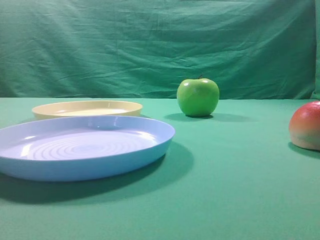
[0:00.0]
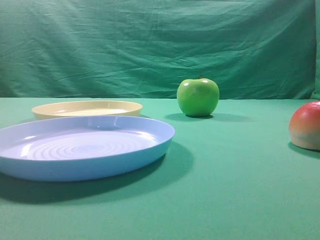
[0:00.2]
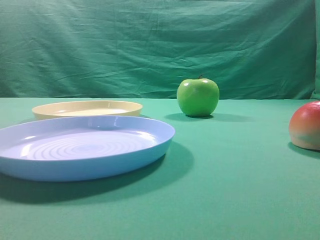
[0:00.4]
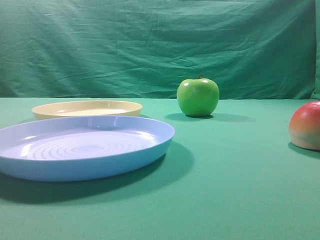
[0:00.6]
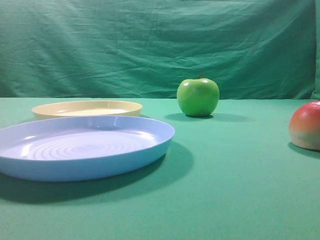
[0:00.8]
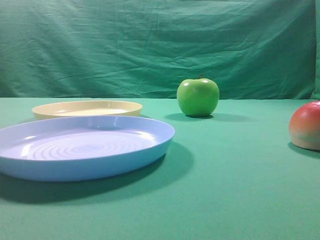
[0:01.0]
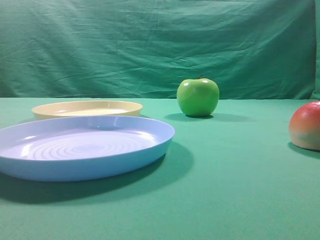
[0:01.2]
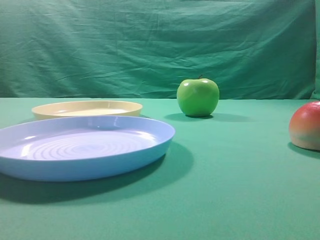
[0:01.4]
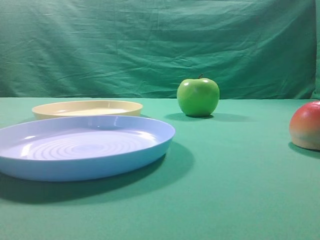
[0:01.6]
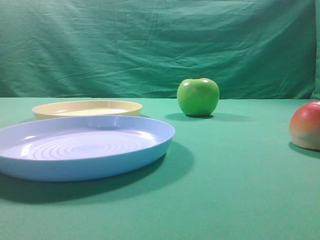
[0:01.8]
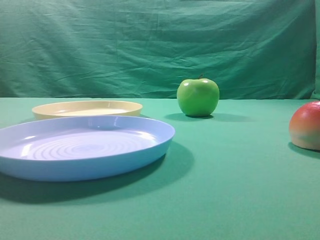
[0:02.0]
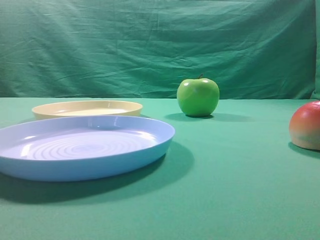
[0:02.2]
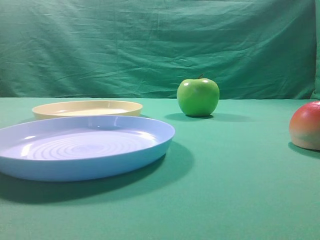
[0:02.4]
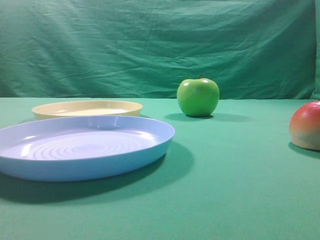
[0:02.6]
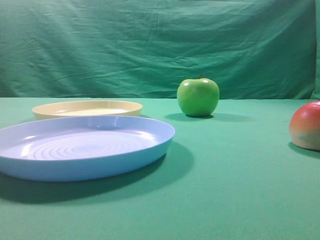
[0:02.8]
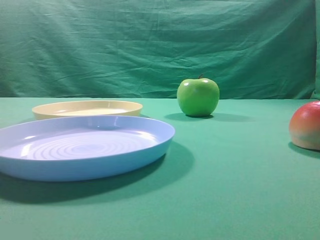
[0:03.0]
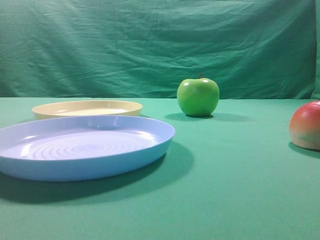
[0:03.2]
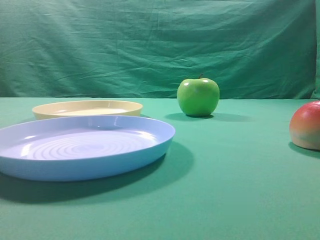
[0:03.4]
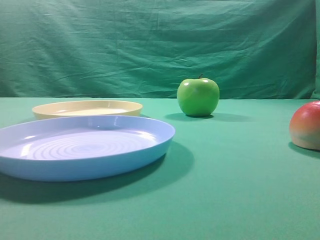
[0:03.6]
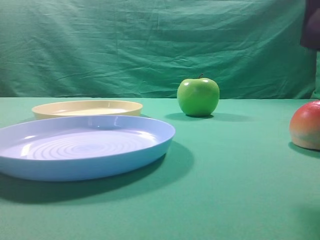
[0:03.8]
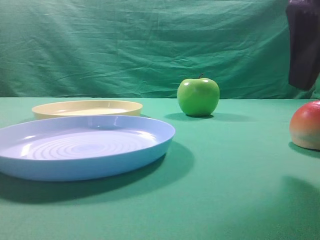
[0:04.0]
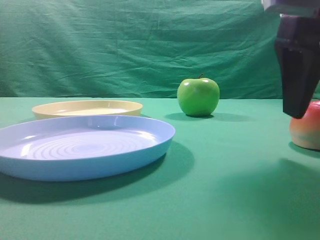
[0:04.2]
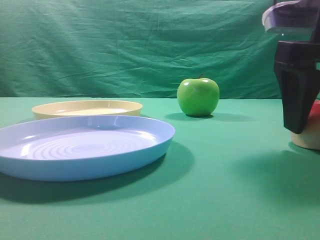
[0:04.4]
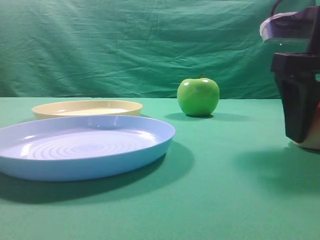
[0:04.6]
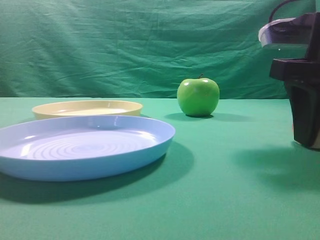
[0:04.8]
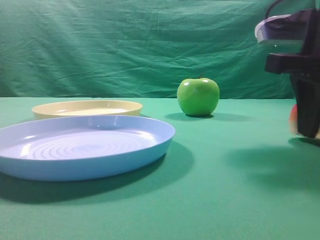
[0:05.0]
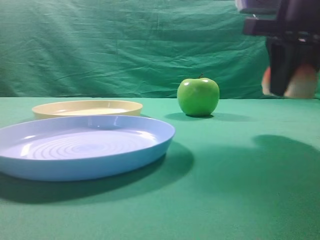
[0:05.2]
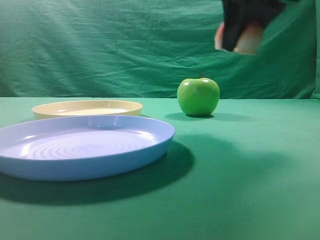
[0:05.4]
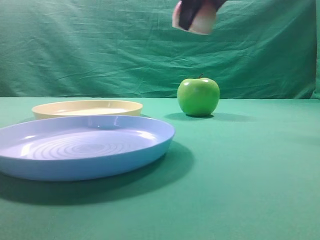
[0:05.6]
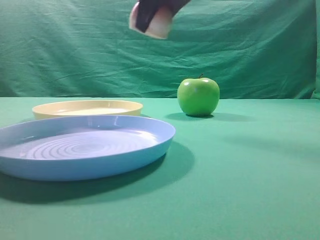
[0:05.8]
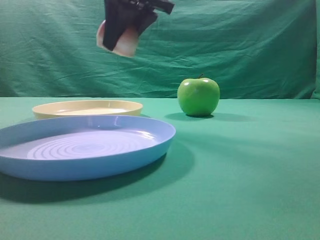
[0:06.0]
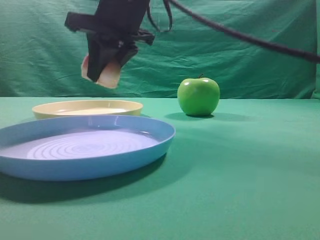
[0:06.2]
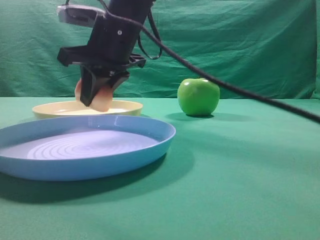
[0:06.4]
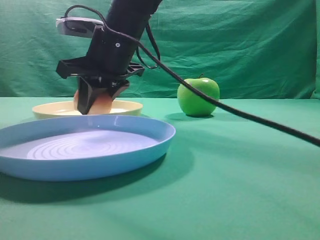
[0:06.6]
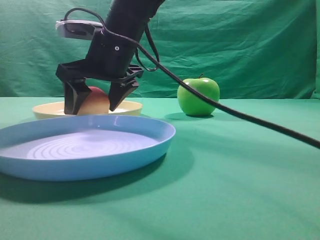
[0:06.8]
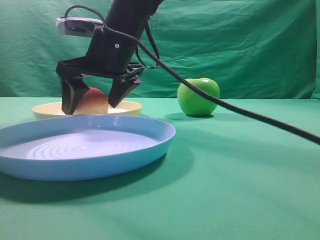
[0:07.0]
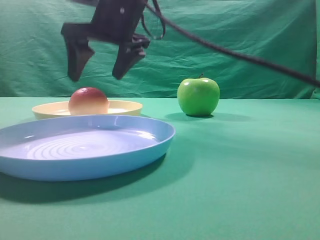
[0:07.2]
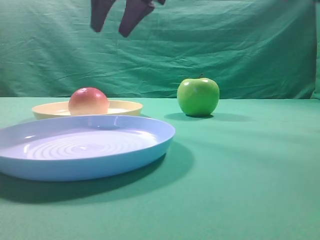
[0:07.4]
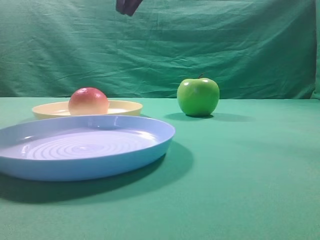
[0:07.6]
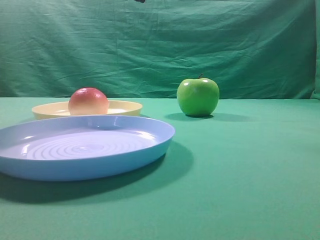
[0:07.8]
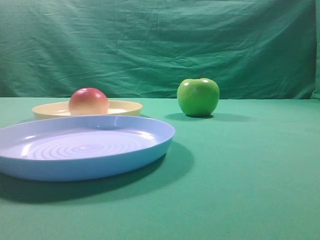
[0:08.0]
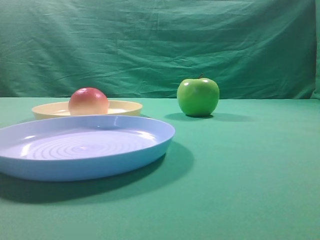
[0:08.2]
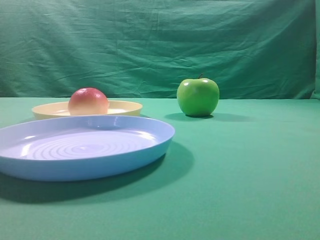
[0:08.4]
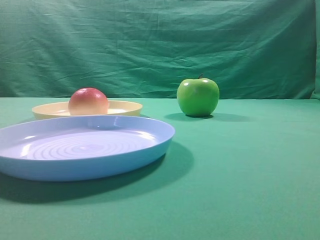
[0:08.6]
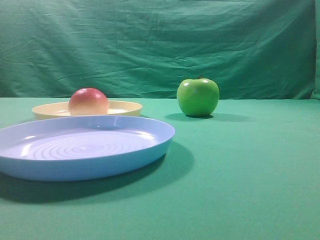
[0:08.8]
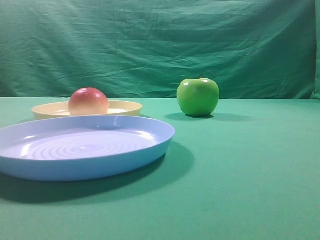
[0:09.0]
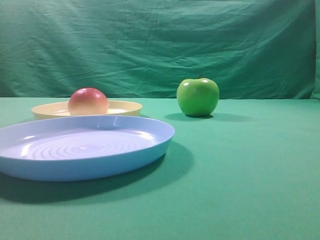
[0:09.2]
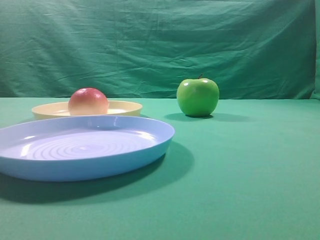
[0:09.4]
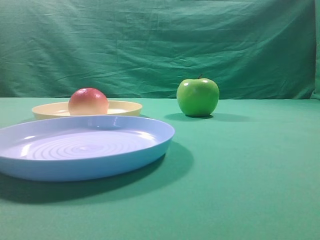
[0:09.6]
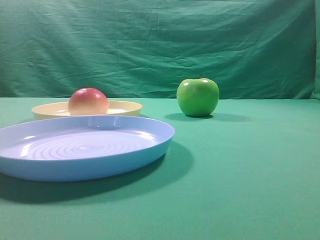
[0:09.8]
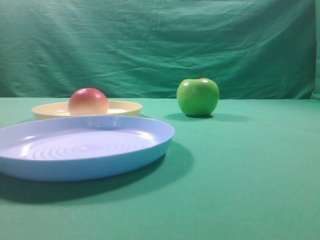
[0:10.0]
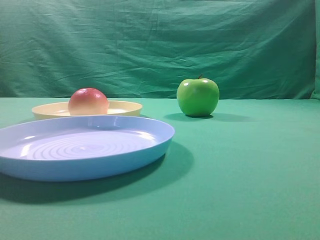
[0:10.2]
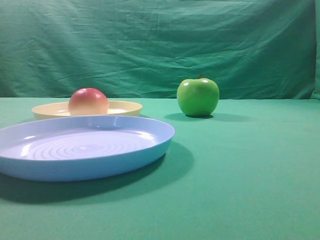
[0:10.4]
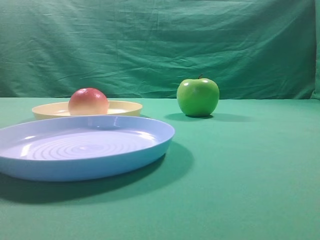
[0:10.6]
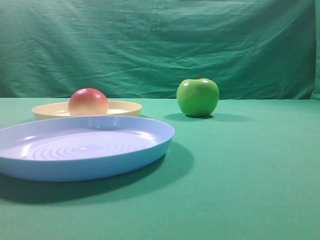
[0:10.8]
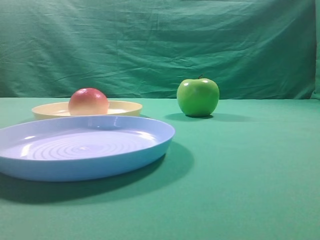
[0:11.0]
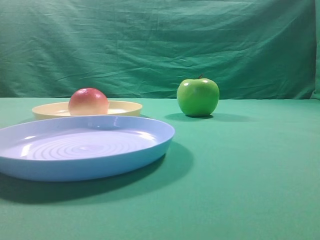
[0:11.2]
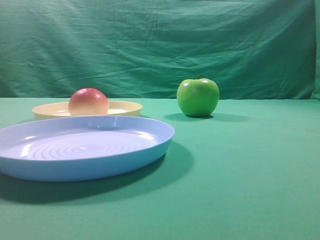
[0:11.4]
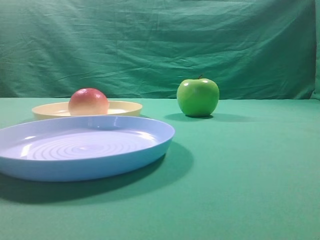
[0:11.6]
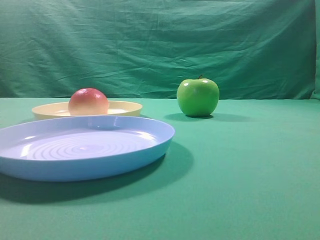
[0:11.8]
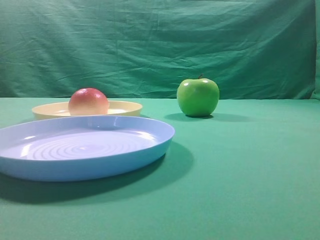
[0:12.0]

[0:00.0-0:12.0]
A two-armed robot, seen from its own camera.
Step, 0:05.2 to 0:07.2: Place the picked object on the yellow plate.
